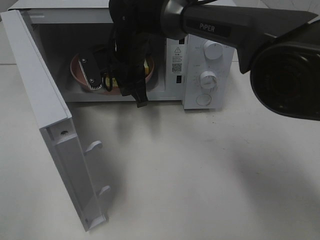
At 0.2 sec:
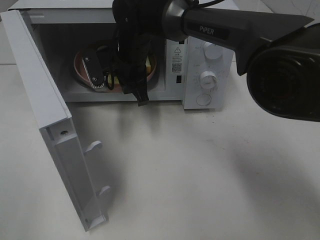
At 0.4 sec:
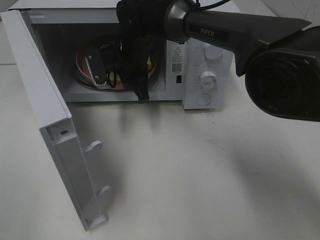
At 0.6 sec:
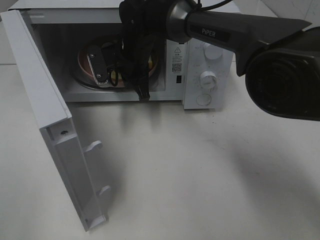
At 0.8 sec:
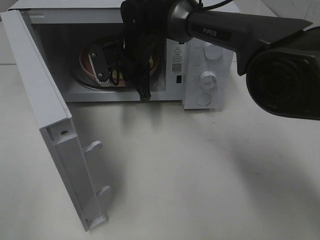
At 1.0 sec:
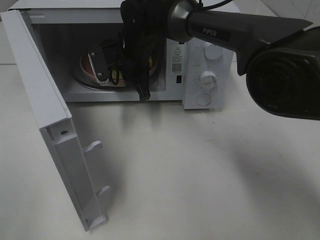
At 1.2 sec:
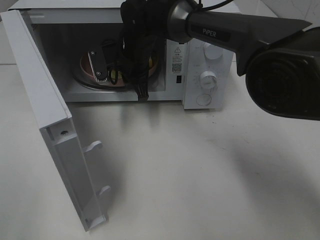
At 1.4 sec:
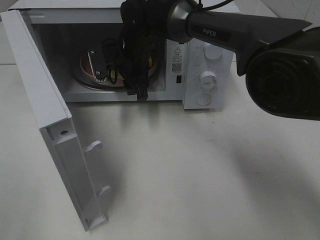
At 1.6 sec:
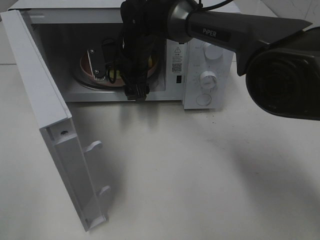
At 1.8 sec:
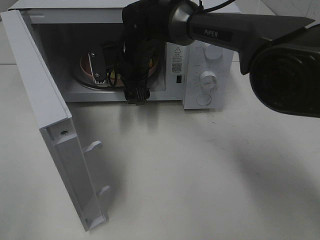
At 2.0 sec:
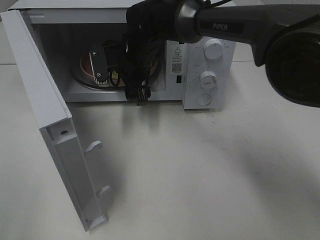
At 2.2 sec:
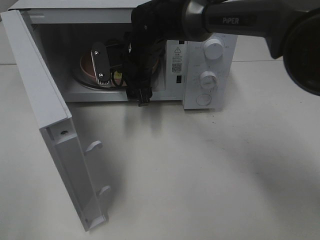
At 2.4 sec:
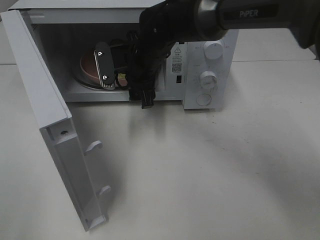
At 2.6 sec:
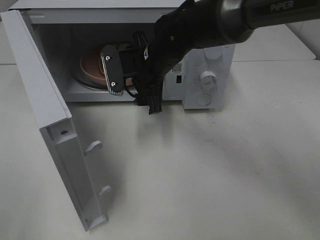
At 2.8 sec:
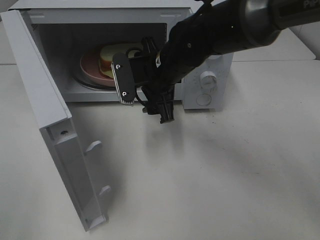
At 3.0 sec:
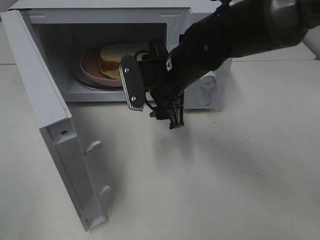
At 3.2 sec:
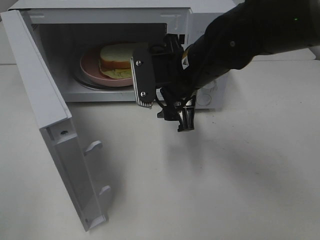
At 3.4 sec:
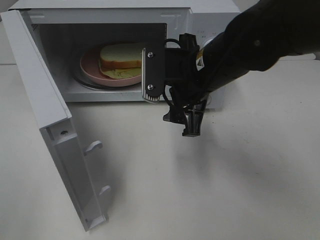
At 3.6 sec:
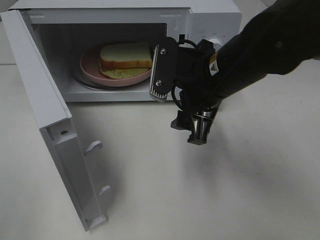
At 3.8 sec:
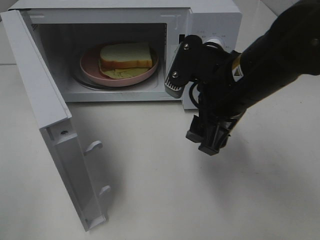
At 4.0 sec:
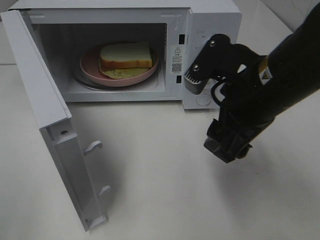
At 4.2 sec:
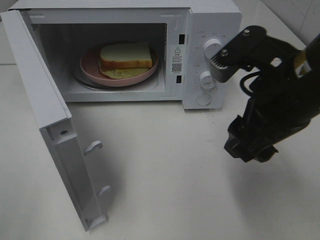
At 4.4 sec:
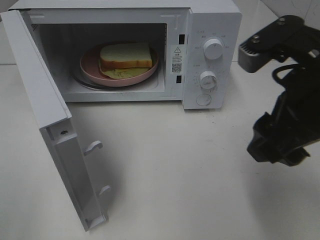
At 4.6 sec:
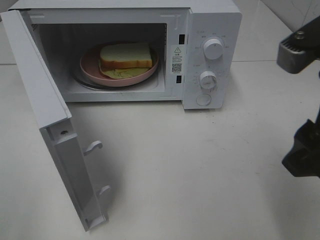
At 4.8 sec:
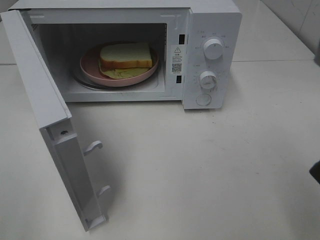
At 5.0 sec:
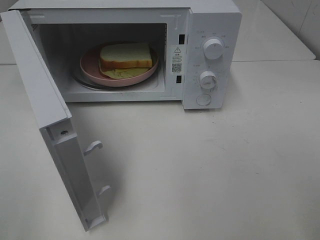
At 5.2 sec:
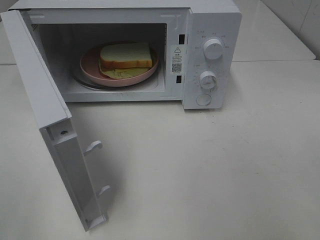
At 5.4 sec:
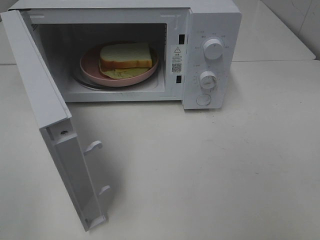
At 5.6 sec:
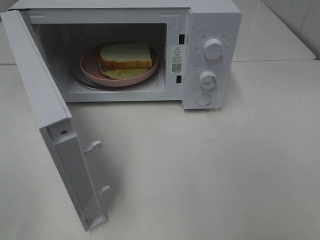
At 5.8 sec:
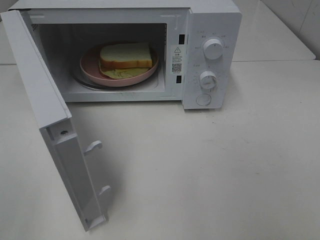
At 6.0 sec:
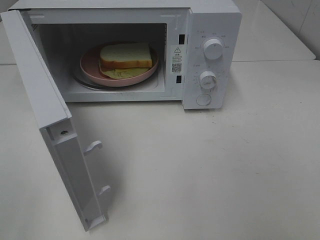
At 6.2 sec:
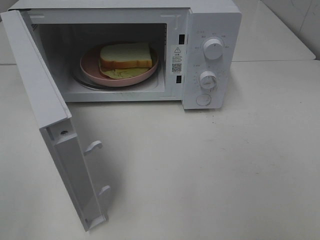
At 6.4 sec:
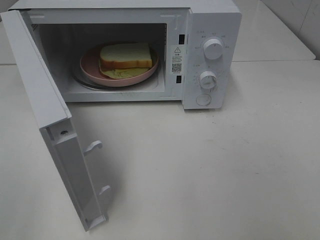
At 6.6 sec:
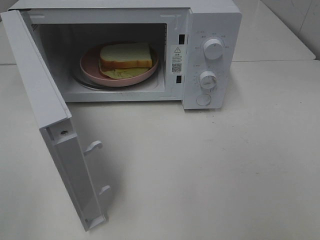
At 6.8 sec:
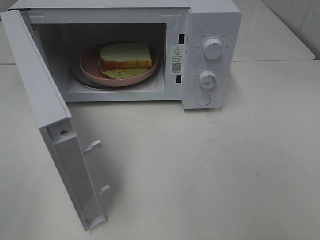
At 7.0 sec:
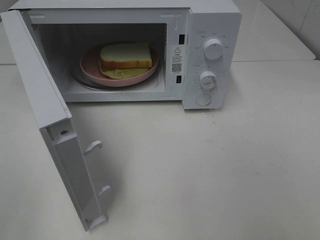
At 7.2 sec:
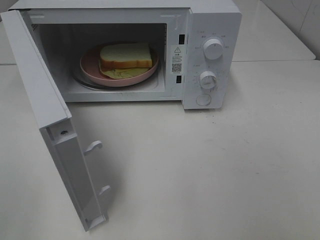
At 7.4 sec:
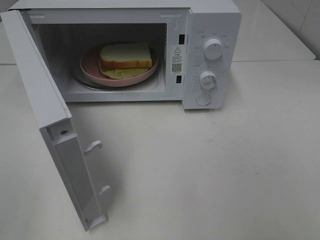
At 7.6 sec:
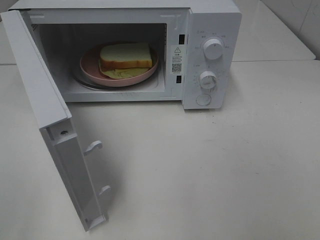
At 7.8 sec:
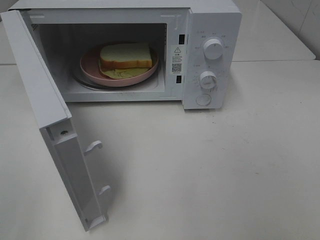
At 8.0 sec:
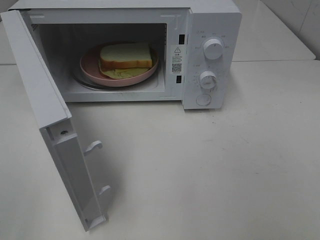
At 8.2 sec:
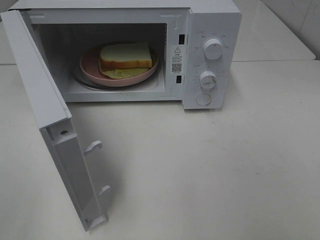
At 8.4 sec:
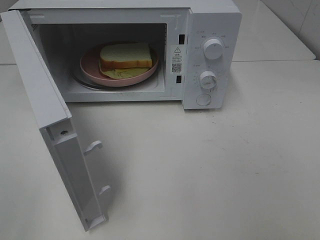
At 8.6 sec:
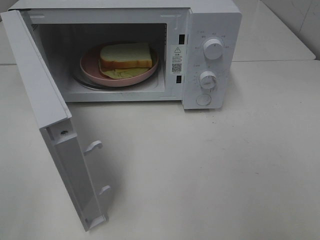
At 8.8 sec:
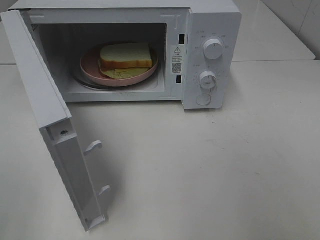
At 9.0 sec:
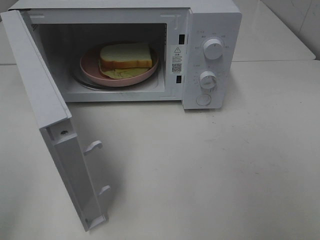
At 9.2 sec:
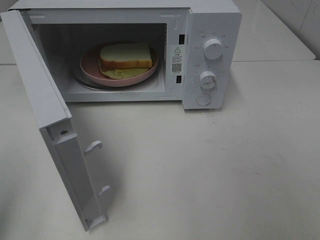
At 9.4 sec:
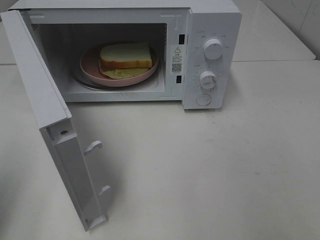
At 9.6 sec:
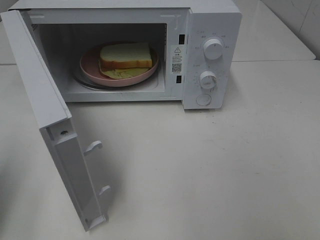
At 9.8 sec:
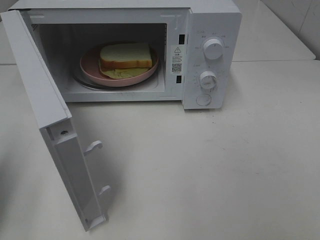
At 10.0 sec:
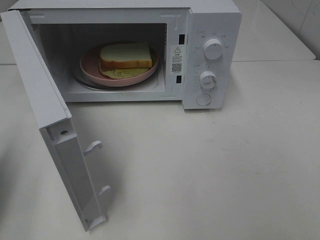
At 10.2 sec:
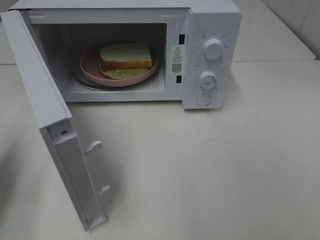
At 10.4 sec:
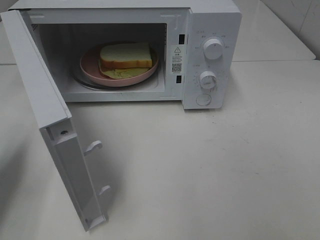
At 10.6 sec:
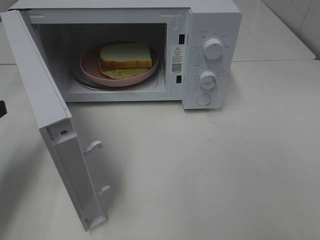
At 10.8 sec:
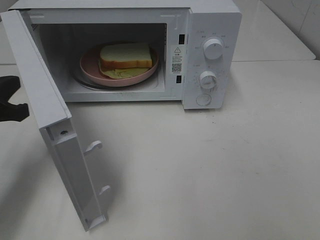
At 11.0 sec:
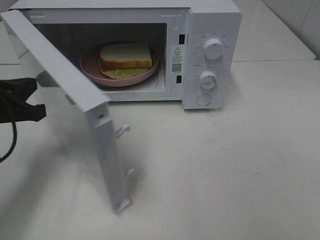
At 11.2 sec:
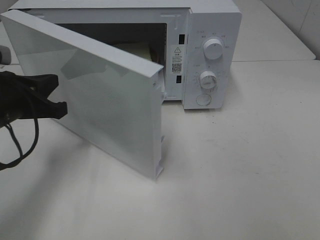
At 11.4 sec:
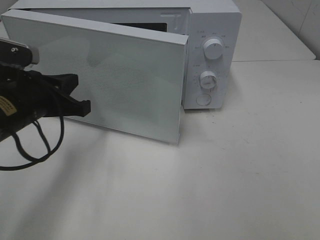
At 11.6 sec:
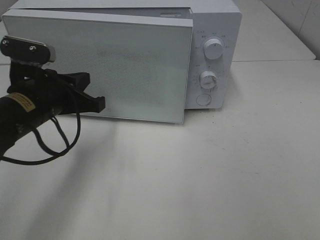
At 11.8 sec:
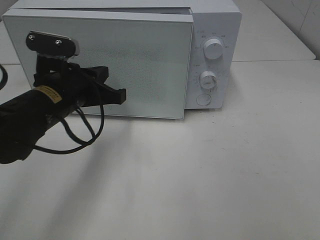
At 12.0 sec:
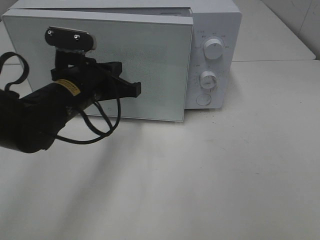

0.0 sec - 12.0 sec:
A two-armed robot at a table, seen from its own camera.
Task of the whole recording: Heat Sandwich.
Step, 0.0 sec - 2.6 sec: Right hand: place the plate in the microwave.
0.0 sec - 1.6 sec: The right gripper opens.
1.6 sec - 3.0 sec: The right gripper travels backward and to the right by about 15 cm.
3.0 sec - 4.4 sec: The right gripper travels backward, to the right and upward by some 25 cm.
4.4 sec - 6.0 sec: The right gripper travels backward and to the right by some 20 cm.
6.0 sec - 7.6 sec: Both grippers stay about where they are.
9.0 sec - 10.4 sec: The left gripper heads forward and downward, covering about 20 cm, and closes.
10.4 sec - 12.0 sec: The left gripper travels to the right and forward by some 25 cm.

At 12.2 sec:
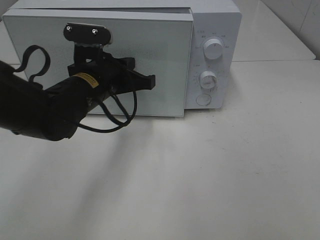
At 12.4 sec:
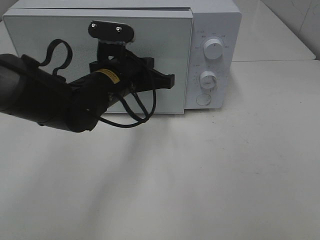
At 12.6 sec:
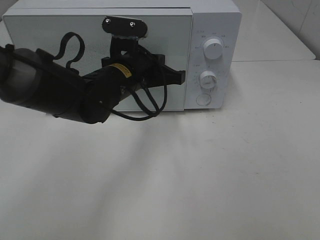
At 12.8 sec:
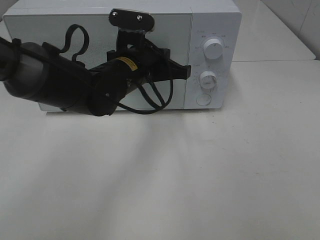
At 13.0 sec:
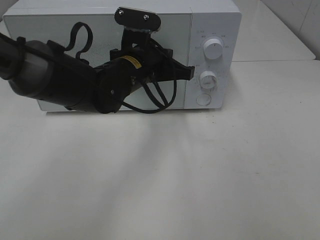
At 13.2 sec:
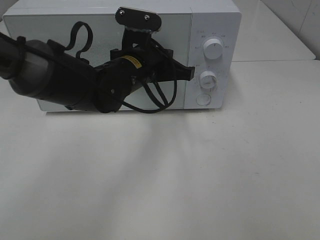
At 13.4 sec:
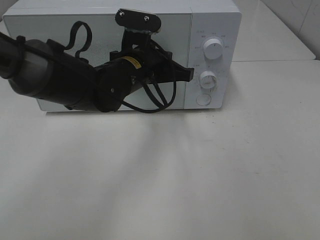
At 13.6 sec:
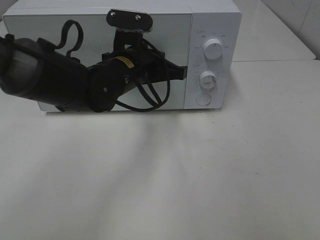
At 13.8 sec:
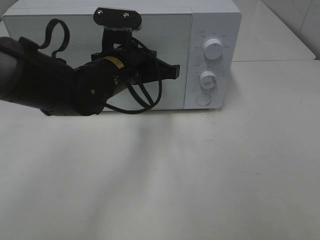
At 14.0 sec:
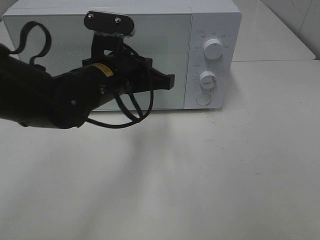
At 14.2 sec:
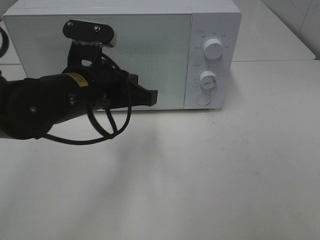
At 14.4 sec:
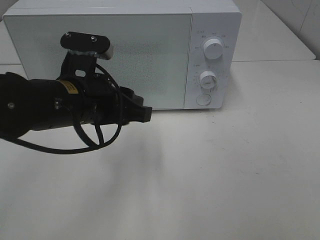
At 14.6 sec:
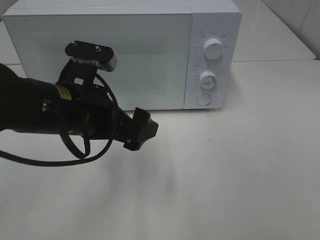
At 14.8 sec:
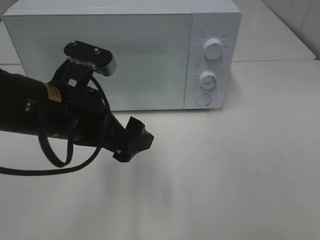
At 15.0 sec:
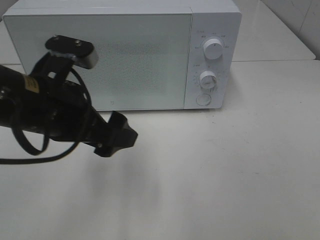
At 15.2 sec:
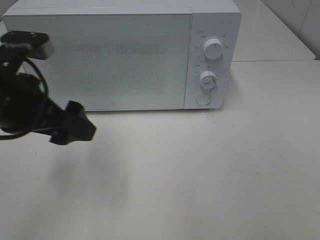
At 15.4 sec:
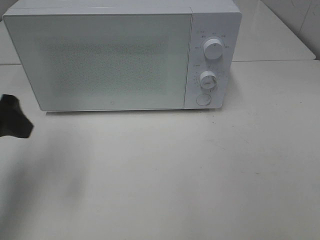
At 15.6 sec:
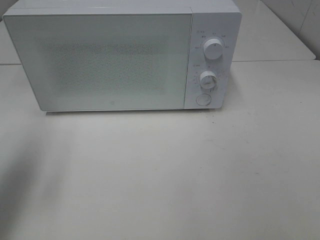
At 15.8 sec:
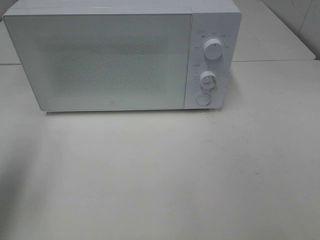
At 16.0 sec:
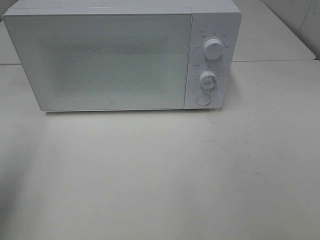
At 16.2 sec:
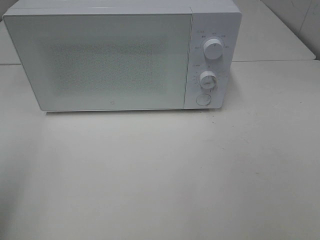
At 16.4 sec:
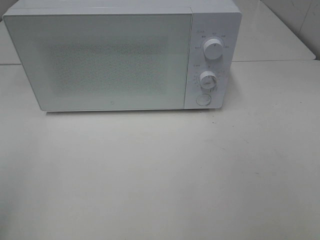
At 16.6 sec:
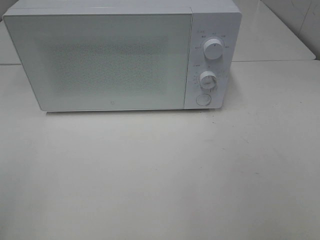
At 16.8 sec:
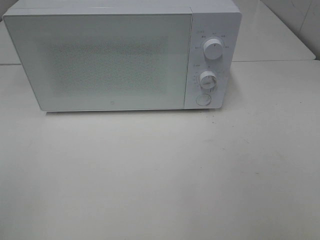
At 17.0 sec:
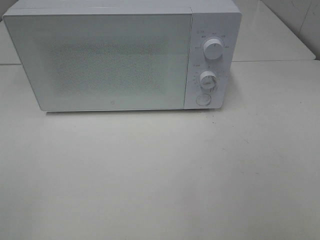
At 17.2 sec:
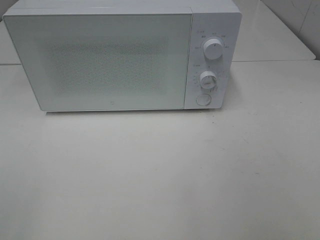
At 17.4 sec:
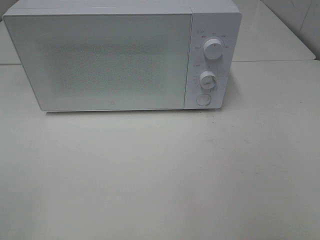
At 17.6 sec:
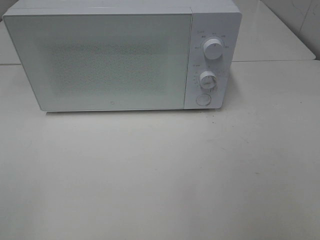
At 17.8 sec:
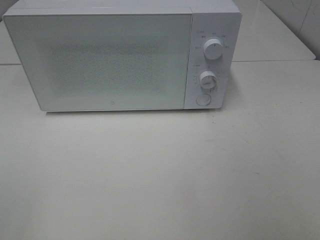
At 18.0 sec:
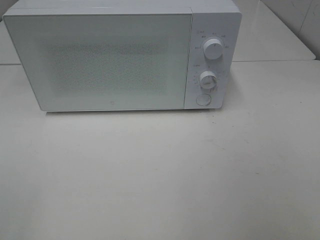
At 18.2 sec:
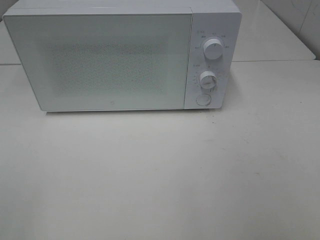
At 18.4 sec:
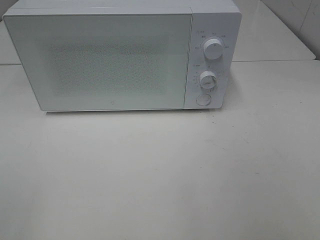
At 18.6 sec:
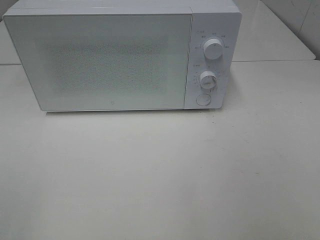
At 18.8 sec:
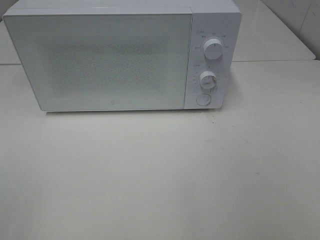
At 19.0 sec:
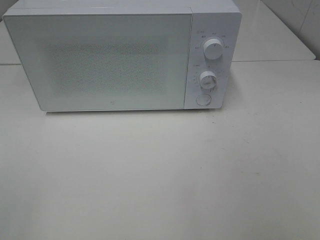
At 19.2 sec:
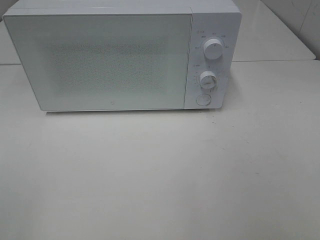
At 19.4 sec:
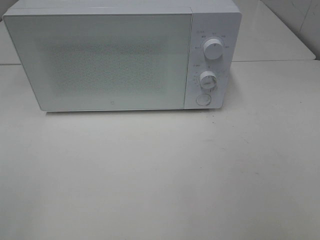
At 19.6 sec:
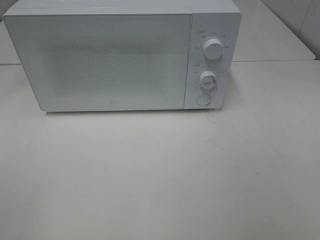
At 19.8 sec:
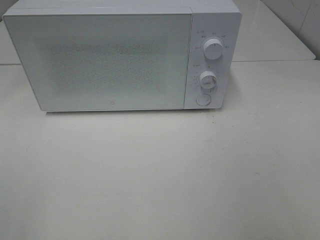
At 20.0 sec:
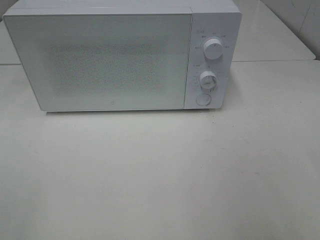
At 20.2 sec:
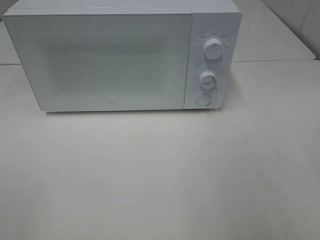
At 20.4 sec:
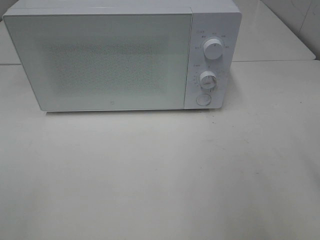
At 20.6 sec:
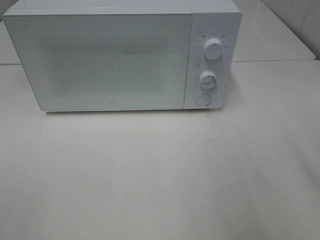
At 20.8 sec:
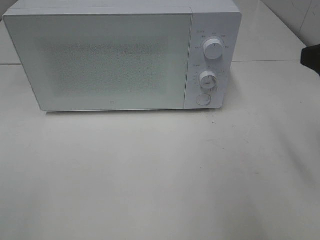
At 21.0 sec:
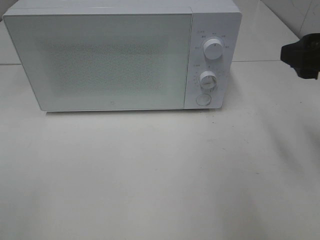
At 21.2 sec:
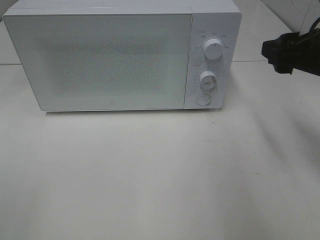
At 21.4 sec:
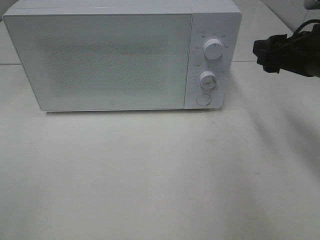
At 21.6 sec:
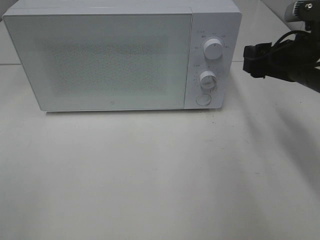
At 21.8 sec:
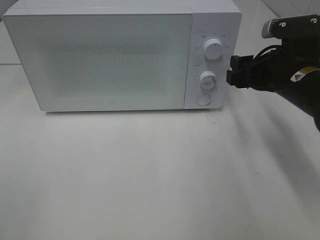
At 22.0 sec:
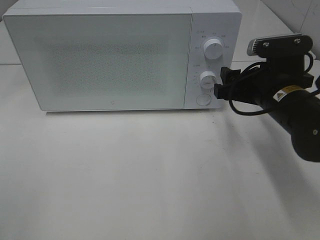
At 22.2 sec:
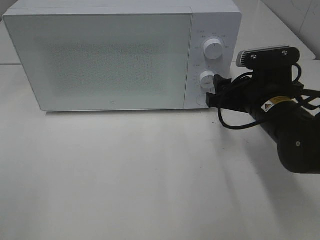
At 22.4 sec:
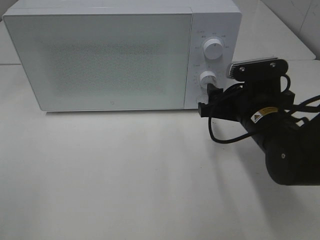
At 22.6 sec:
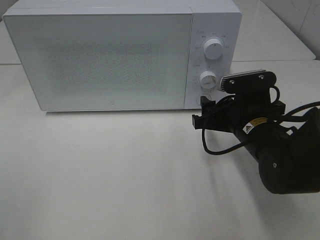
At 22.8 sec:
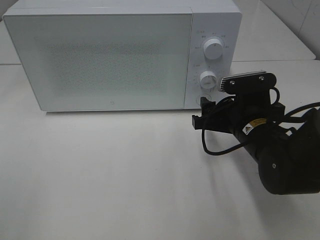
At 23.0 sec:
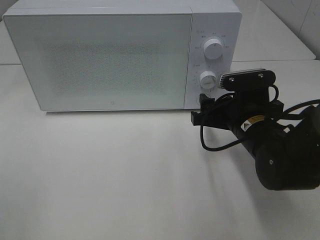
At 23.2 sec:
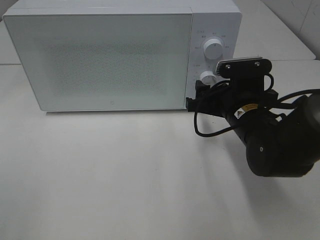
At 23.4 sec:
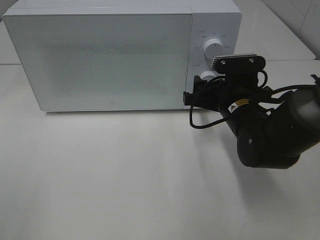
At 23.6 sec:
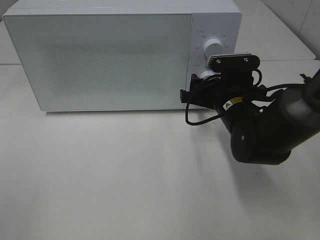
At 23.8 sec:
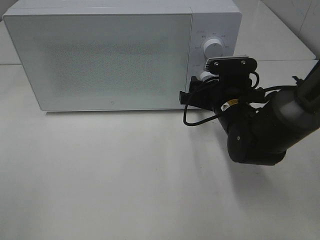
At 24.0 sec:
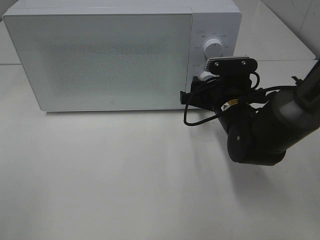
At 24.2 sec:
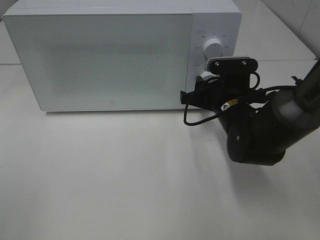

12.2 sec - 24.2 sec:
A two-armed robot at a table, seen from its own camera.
Task of the whole recording: Heat Sandwich.
13.8 sec - 15.2 sec: The left gripper heads to the left and backward, covering about 15 cm, and opens up.
15.2 sec - 16.6 sec: The left gripper travels backward and to the left by some 25 cm.
19.8 sec - 21.2 sec: The right gripper shifts approximately 20 cm forward.
21.2 sec - 22.6 sec: The right gripper shifts some 15 cm downward and to the left.
22.6 sec - 24.2 sec: The right gripper travels forward by about 5 cm.
